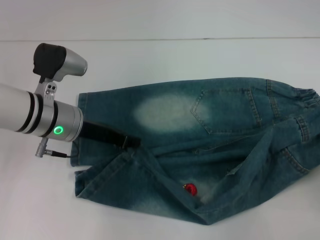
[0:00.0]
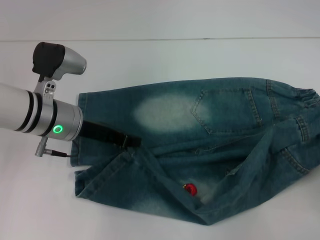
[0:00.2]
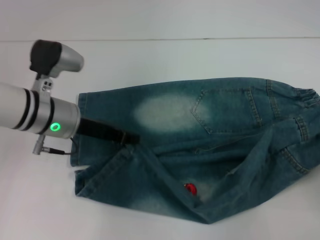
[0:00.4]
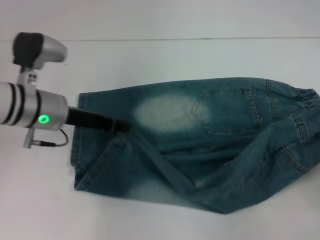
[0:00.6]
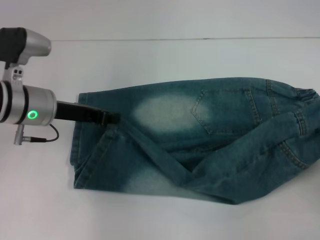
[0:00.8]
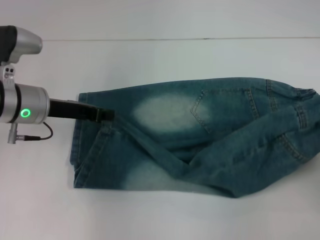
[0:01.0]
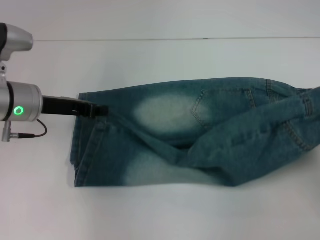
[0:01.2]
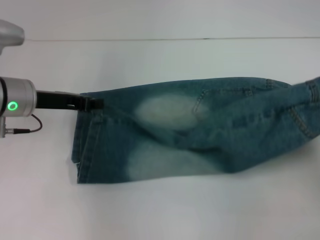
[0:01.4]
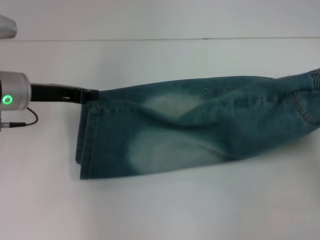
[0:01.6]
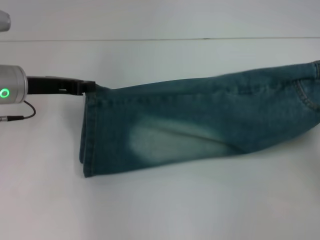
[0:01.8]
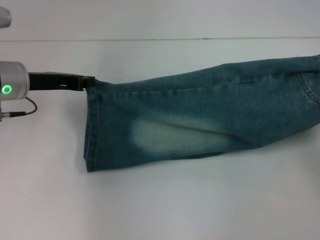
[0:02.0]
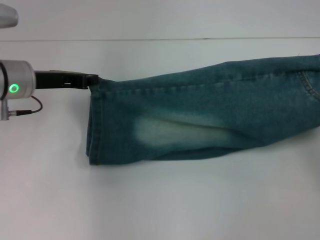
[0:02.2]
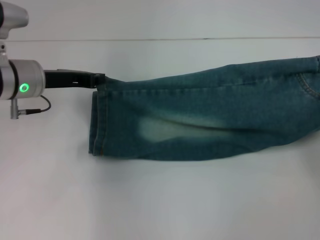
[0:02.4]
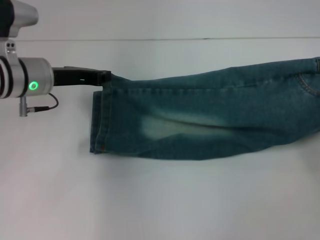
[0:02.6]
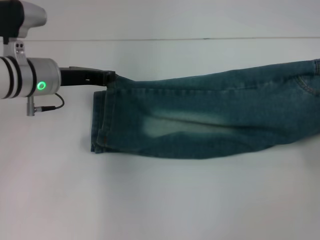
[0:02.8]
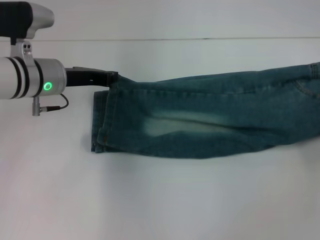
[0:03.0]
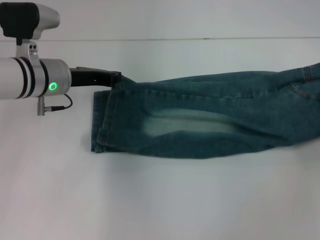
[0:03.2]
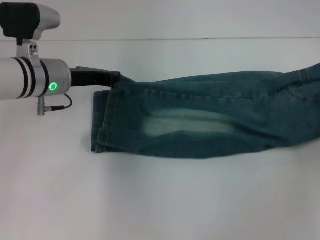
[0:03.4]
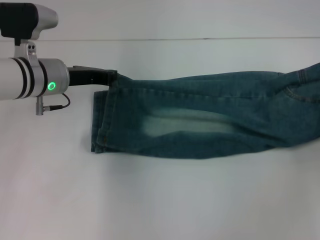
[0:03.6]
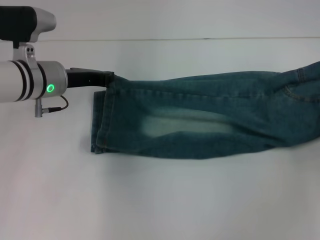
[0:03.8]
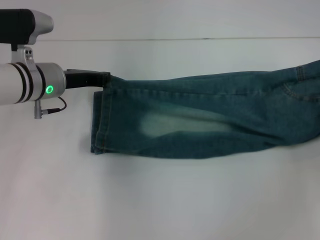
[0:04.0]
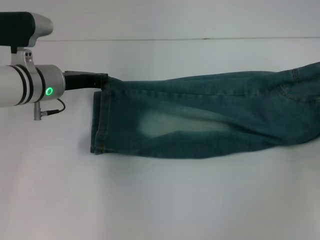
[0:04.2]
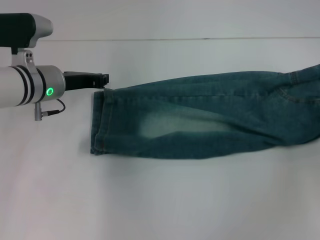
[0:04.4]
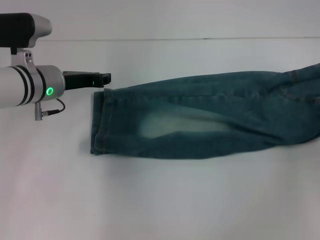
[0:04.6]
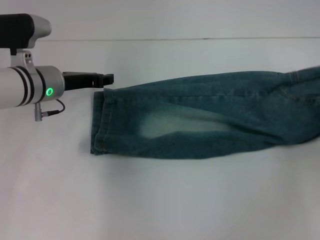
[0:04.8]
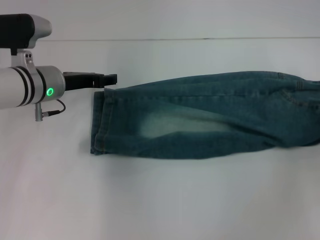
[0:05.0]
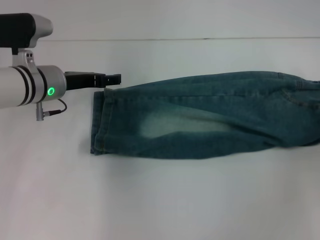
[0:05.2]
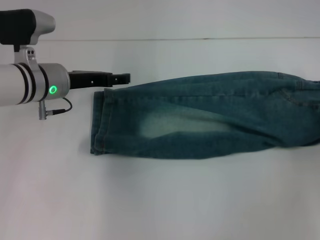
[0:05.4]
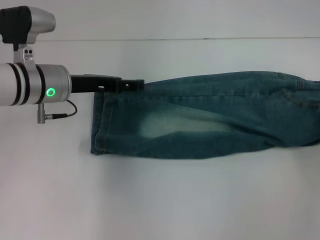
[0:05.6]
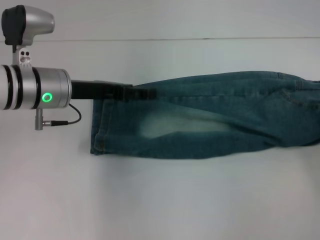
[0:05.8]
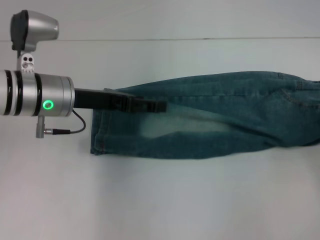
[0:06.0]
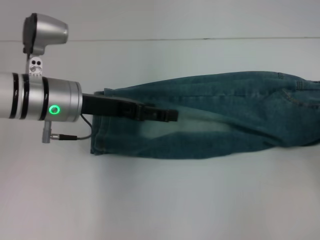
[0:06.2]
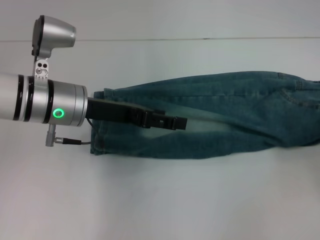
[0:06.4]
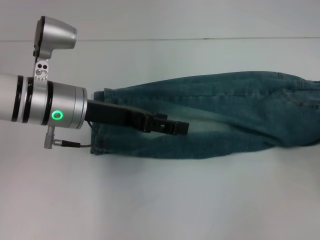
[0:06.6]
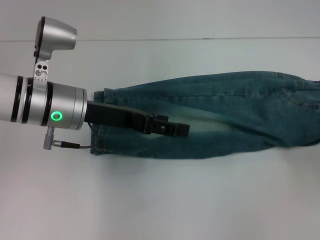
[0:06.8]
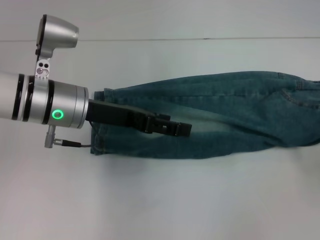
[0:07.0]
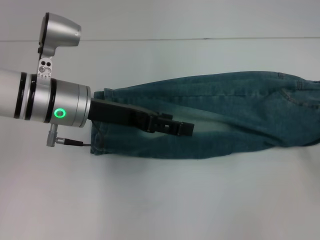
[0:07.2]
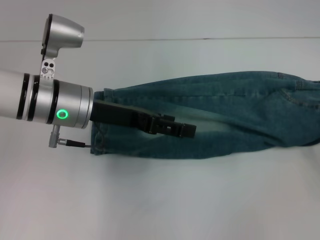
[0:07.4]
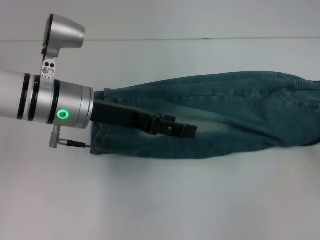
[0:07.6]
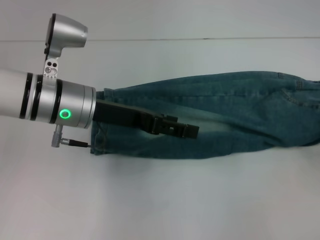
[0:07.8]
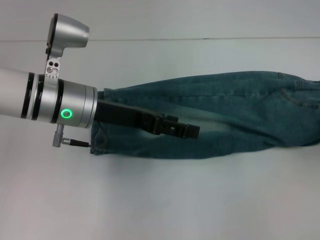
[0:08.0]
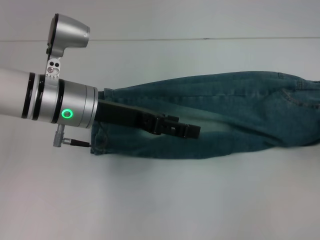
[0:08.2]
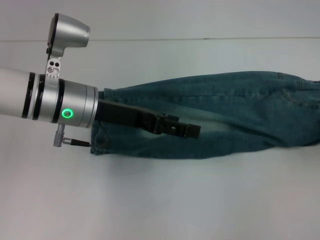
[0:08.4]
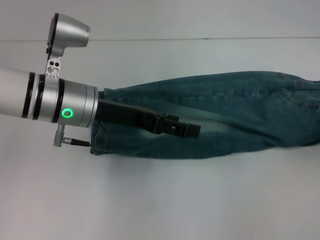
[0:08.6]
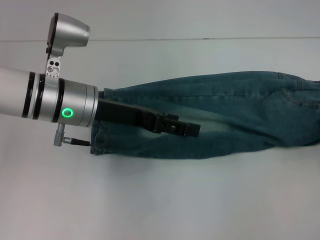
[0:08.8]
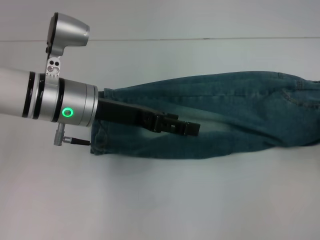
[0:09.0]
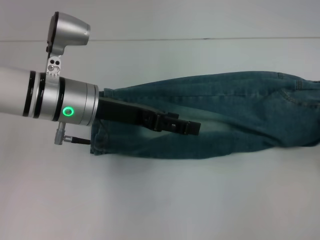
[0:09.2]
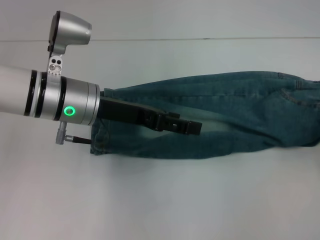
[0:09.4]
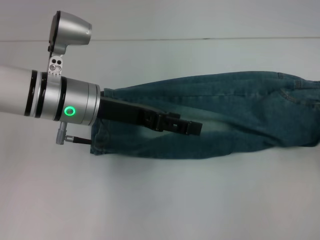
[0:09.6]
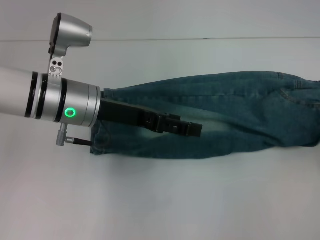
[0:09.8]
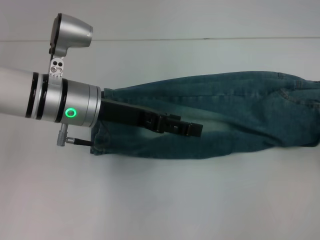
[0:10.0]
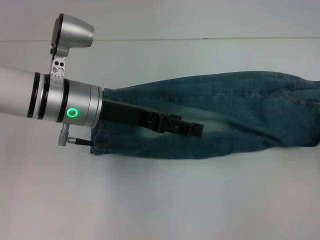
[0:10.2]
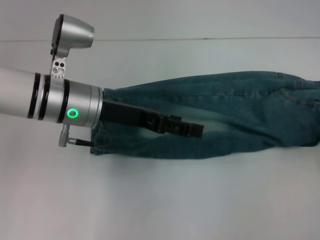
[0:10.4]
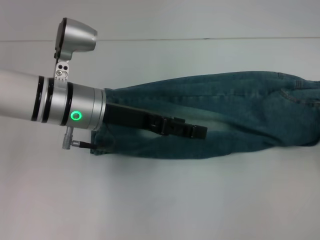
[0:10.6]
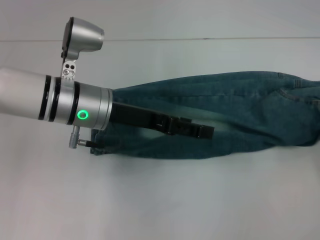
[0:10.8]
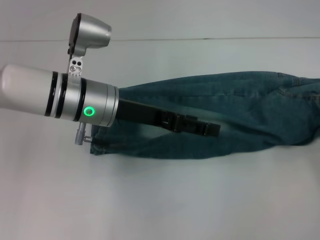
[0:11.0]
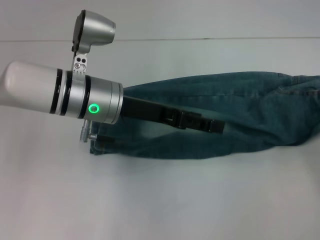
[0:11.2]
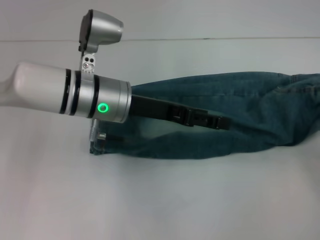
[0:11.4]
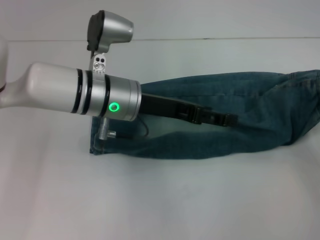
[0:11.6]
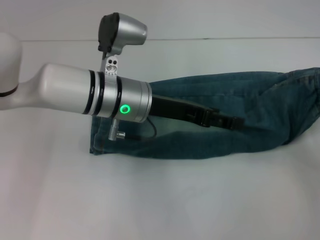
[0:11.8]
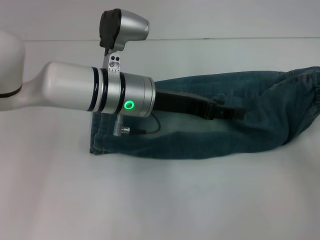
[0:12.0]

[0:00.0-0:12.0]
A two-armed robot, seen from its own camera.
Step, 0:01.0 to 0:05.2: Fold upward with your right hand.
Step, 0:05.4 to 0:11.0: Grab the waistband with your right hand.
0:00.0 to 0:01.6: The left gripper heads to the left, covering roughly 5 cm.
0:01.6 to 0:03.0: The left gripper ends up roughly 5 cm from where it was; the right gripper heads forward, covering some 5 cm.
0:03.0 to 0:04.4: The grippers make only small movements.
0:04.4 to 0:06.0: The right gripper goes some 10 cm backward, and opens, while the left gripper ends up some 5 cm from where it was, and opens up.
0:06.0 to 0:07.6: The right gripper moves approximately 5 cm.
0:07.6 to 0:09.0: The grippers make only small movements.
0:10.4 to 0:12.0: The right gripper ends up some 5 cm from where it was, while the left gripper heads to the right, covering about 5 cm.

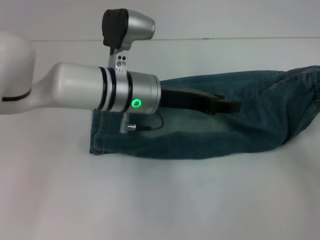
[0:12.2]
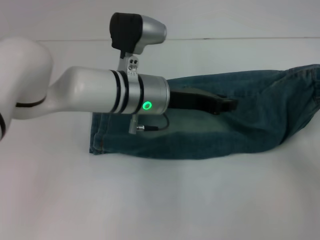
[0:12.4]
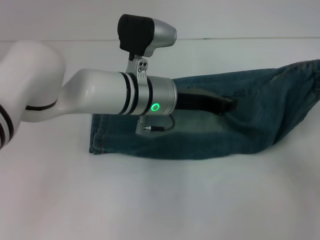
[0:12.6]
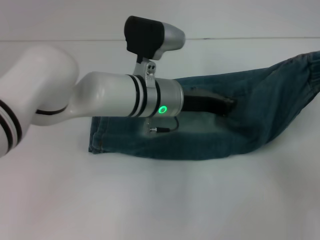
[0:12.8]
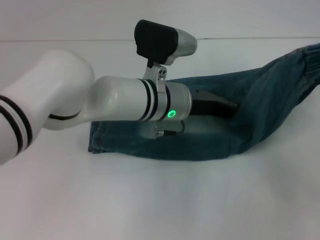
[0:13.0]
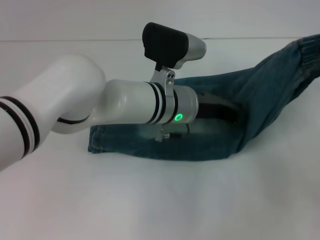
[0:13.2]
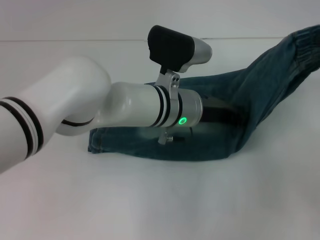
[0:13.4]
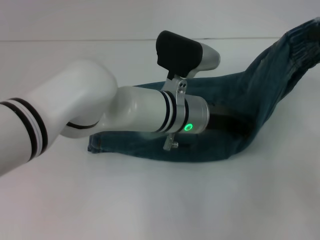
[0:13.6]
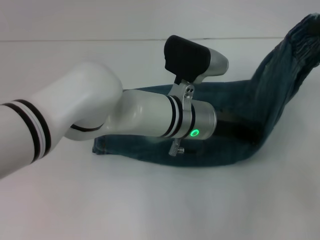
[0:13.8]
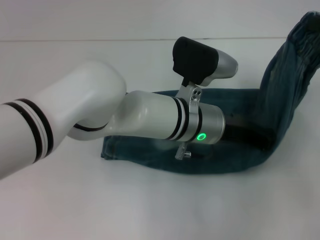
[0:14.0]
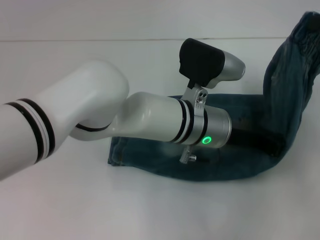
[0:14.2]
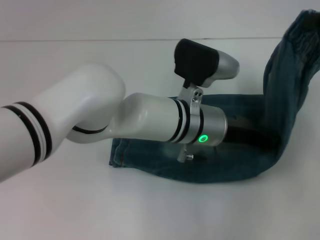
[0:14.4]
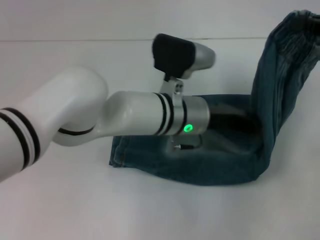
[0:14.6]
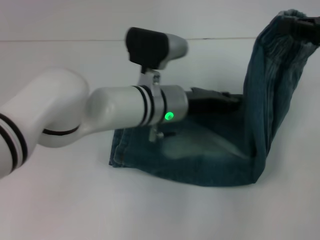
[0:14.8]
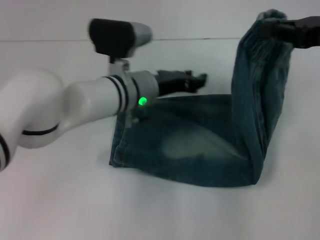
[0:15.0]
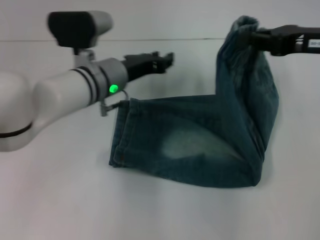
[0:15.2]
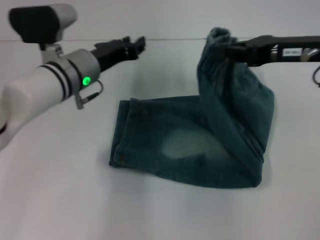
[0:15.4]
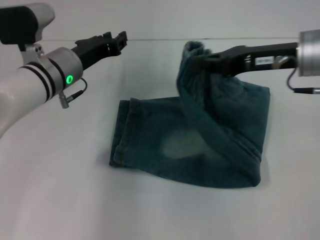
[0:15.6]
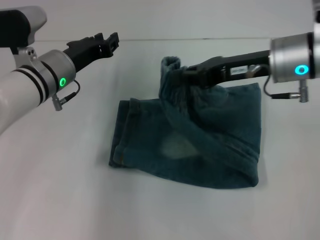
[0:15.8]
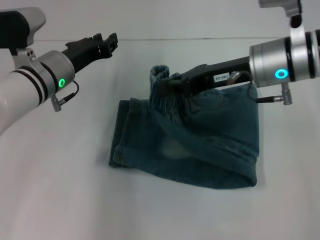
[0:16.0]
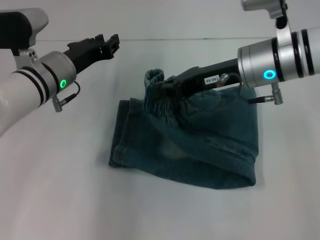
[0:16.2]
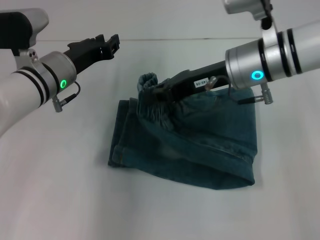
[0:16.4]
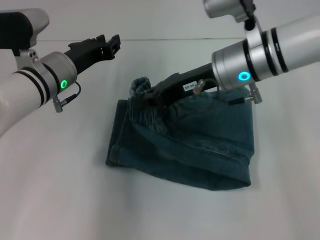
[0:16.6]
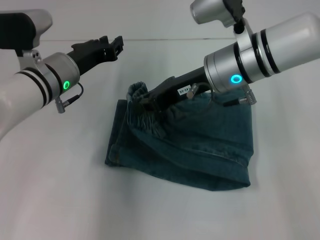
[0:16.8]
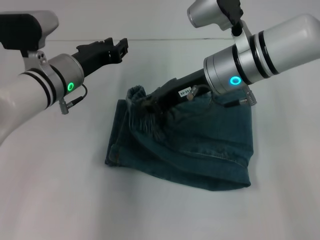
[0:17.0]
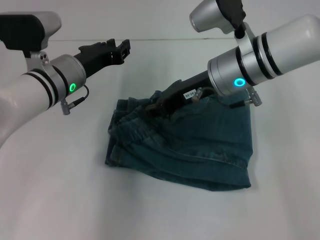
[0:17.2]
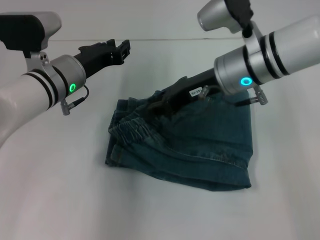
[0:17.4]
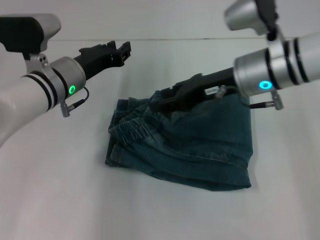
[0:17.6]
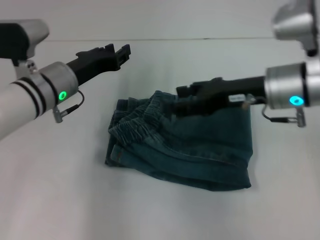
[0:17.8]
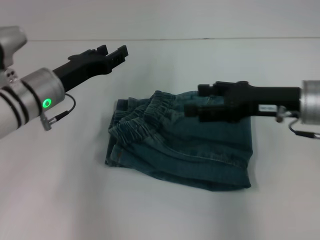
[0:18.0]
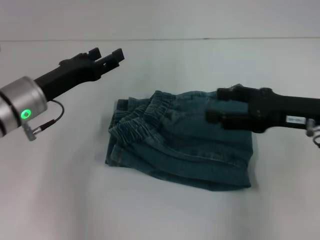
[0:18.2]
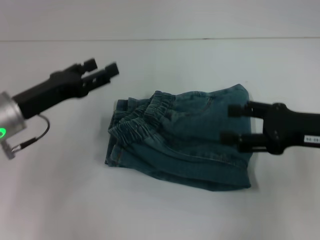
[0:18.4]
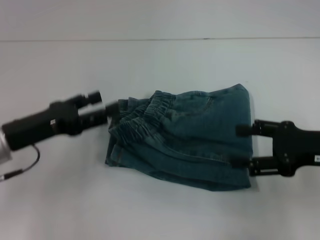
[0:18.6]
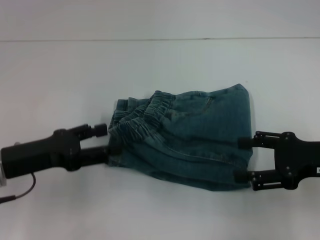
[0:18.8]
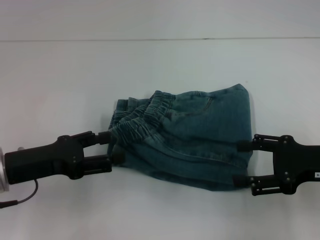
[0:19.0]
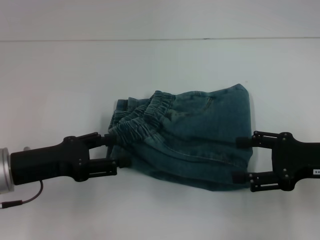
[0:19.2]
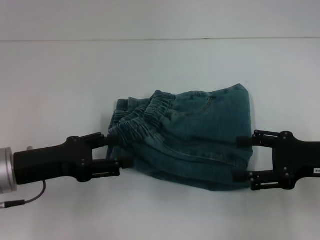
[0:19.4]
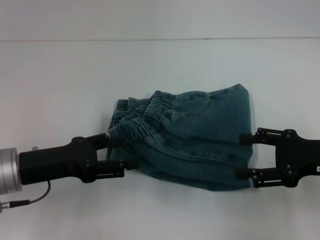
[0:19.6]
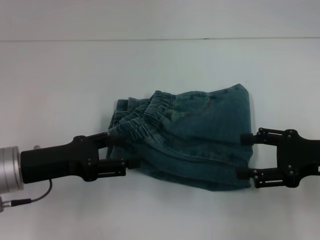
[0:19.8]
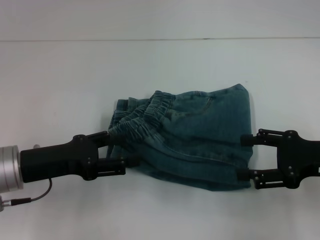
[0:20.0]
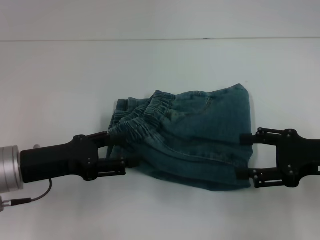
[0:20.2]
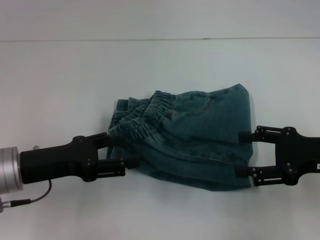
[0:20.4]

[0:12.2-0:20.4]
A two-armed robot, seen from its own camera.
Step, 0:12.2 to 0:14.8: Press the middle of the pants with your left hand.
Step, 0:15.0 to 0:17.4: Fold to the left with your right hand.
0:12.2 to 0:13.8: The left gripper shifts about 10 cm to the right, and closes up. Meanwhile the right gripper heads upward, covering about 10 cm.
0:13.8 to 0:15.4: Both grippers travel together to the left, some 15 cm. The left gripper opens.
0:15.4 to 0:17.2: The right gripper travels to the left by about 15 cm.
0:17.2 to 0:18.8: The left gripper goes roughly 15 cm backward and to the left, and opens its fingers. The right gripper heads to the right and backward, covering approximately 20 cm, and opens its fingers.
0:18.8 to 0:20.4: There are only small adjustments of the grippers.
